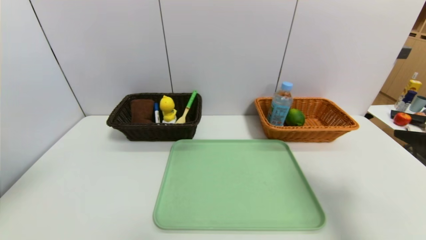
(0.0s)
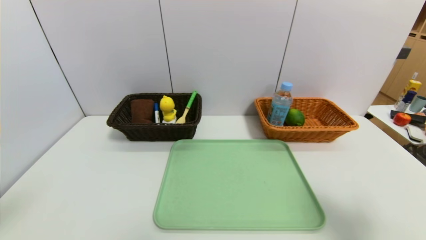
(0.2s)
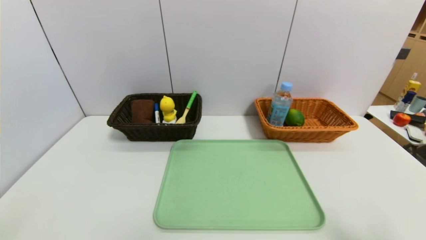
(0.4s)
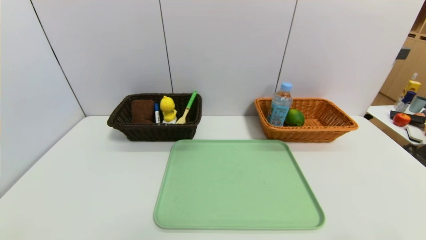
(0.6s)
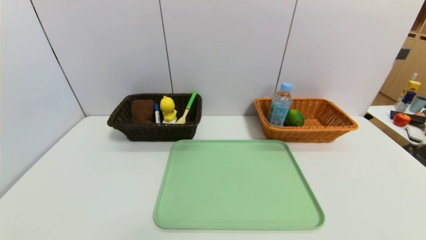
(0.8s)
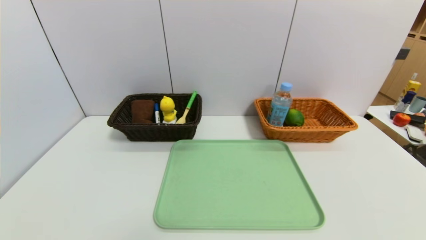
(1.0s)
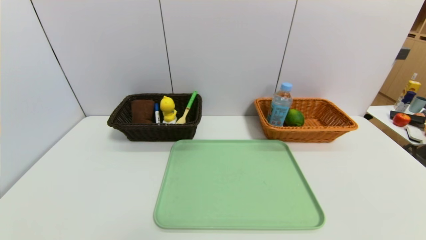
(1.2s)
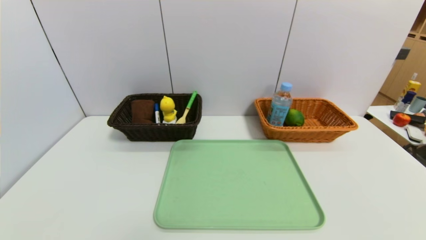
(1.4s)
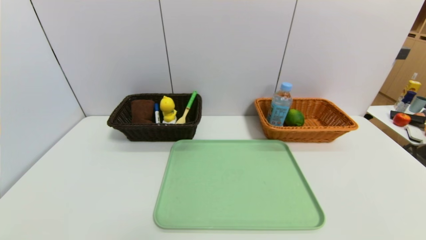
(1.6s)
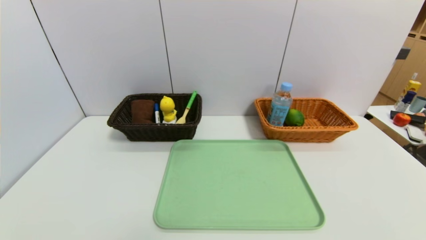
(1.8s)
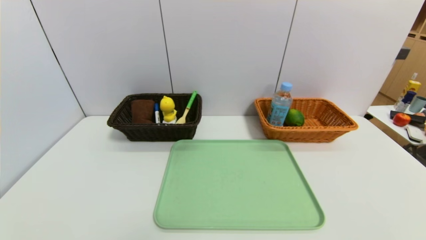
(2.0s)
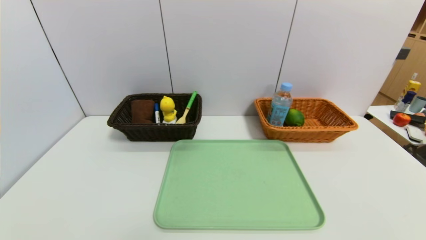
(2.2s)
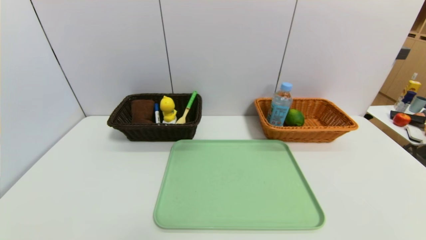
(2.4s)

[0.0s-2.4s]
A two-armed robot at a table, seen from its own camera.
Task of the whole recording: place the food in the right basket with the right gripper, and place the non food items in the left basket with the left gripper.
0.0s to 1.2s: The right gripper moves backward and downward, approximately 20 cm; the left gripper goes roughly 25 cm downward and backward.
